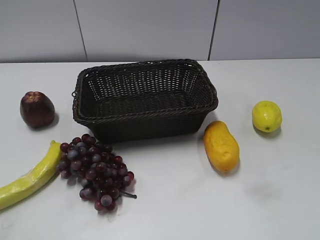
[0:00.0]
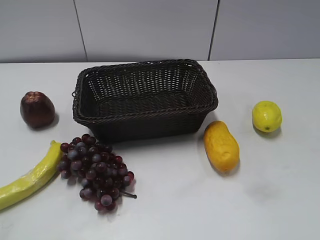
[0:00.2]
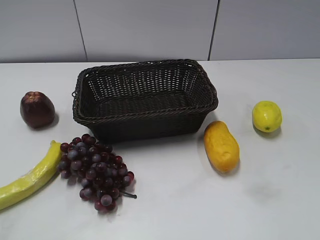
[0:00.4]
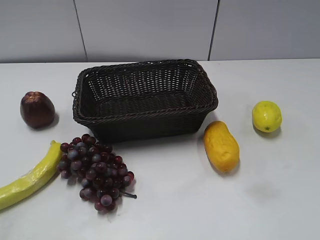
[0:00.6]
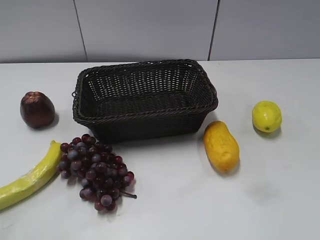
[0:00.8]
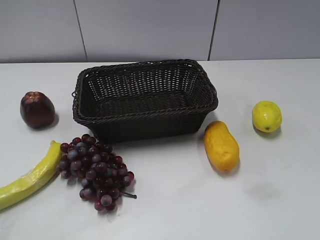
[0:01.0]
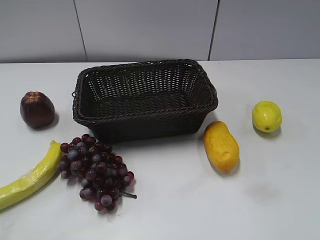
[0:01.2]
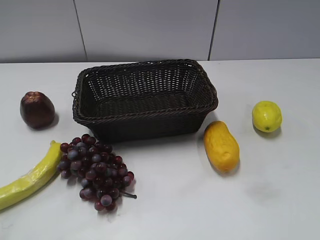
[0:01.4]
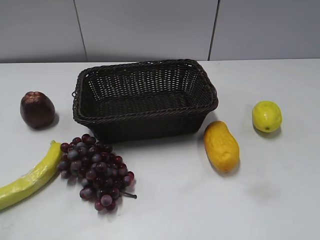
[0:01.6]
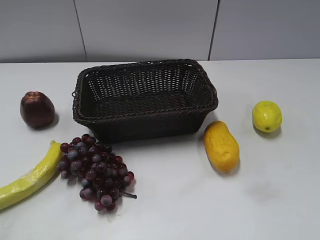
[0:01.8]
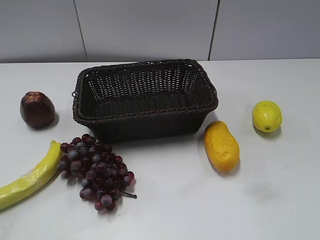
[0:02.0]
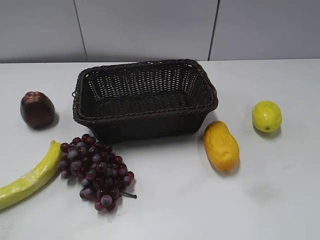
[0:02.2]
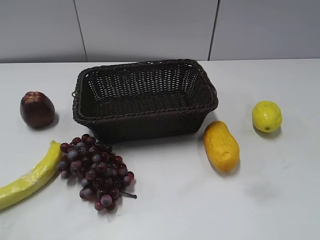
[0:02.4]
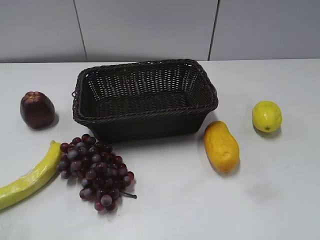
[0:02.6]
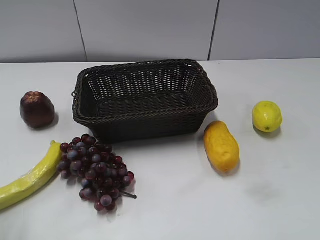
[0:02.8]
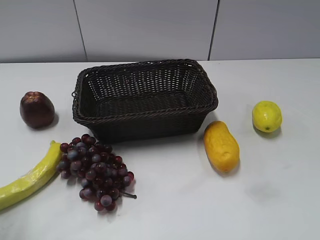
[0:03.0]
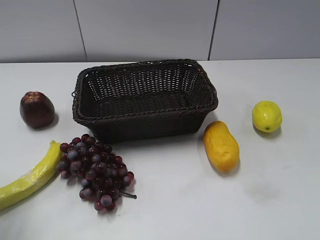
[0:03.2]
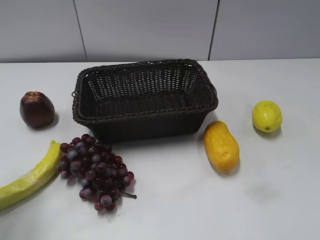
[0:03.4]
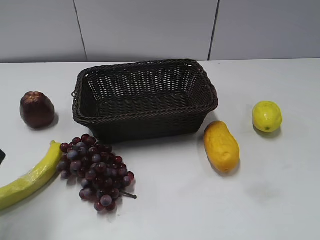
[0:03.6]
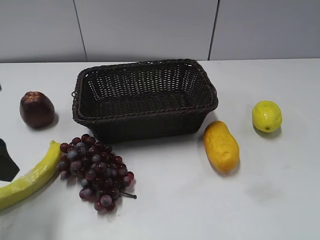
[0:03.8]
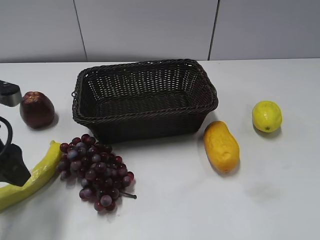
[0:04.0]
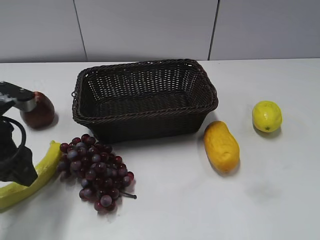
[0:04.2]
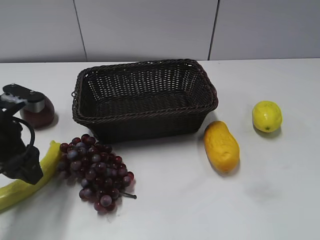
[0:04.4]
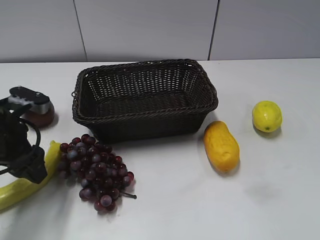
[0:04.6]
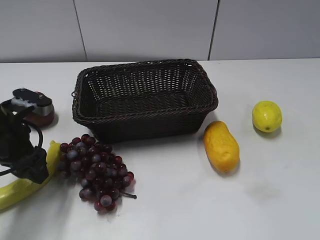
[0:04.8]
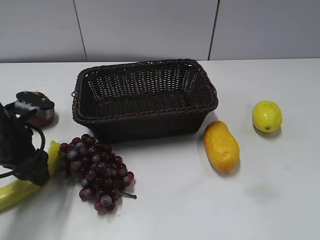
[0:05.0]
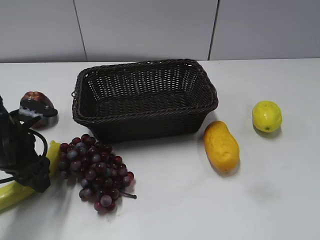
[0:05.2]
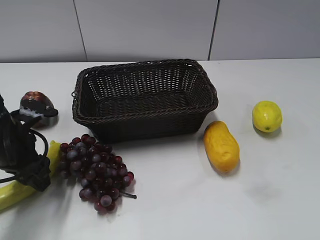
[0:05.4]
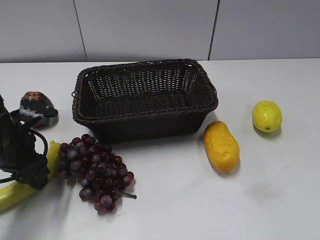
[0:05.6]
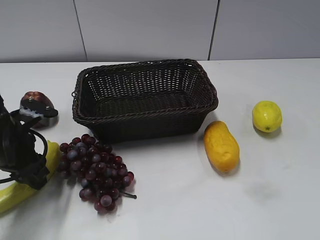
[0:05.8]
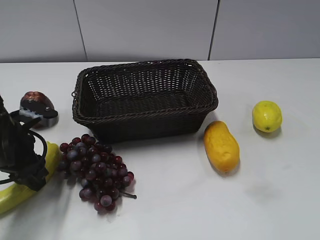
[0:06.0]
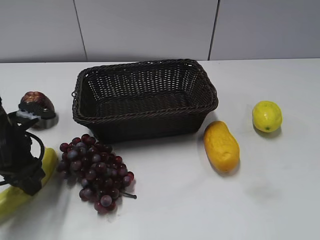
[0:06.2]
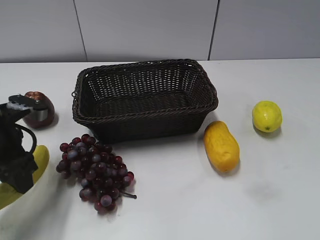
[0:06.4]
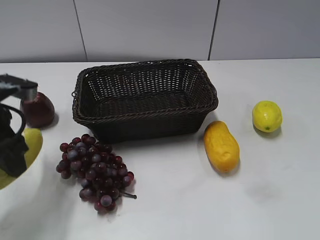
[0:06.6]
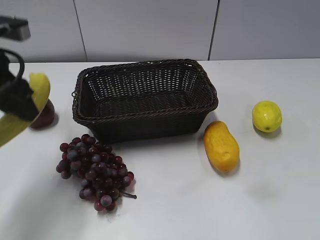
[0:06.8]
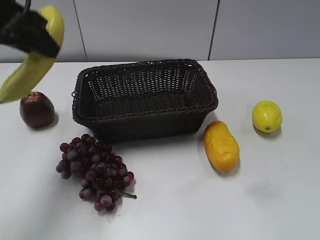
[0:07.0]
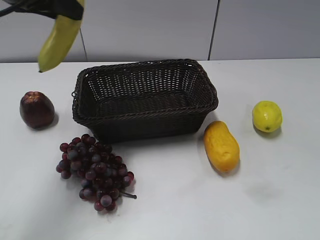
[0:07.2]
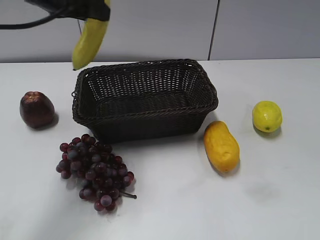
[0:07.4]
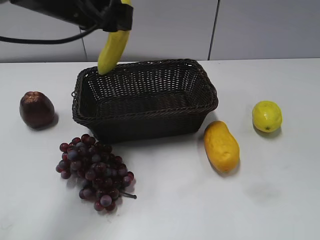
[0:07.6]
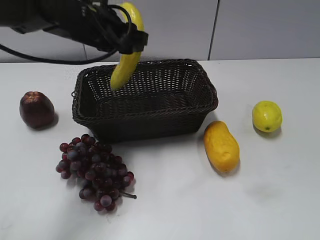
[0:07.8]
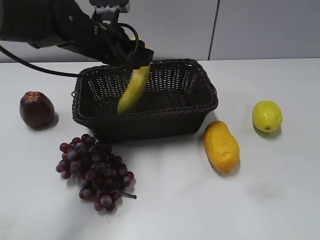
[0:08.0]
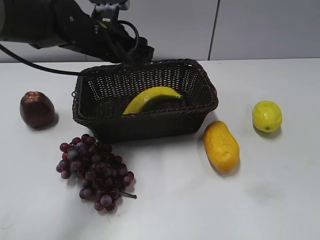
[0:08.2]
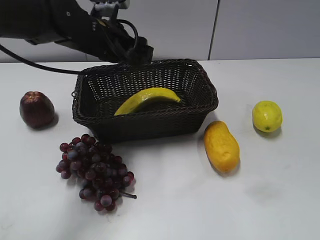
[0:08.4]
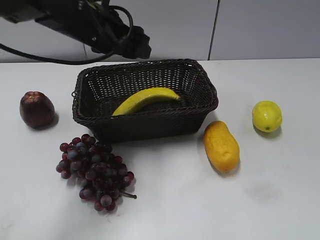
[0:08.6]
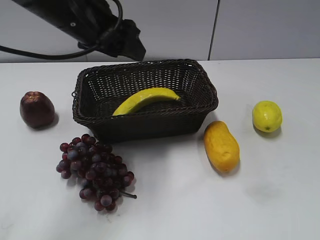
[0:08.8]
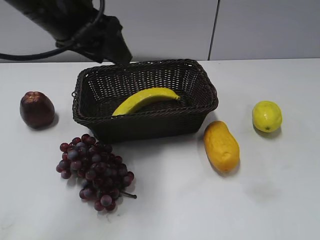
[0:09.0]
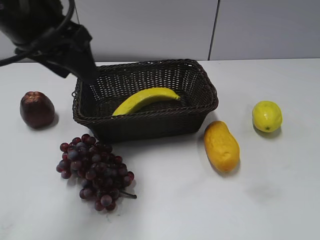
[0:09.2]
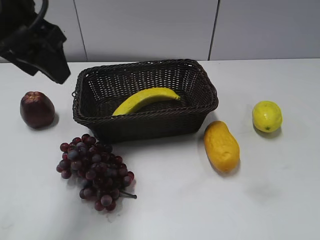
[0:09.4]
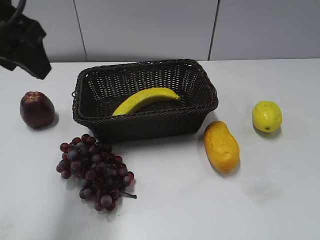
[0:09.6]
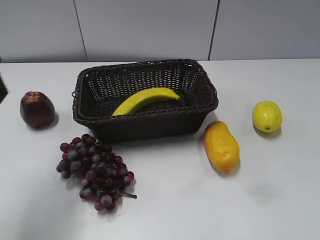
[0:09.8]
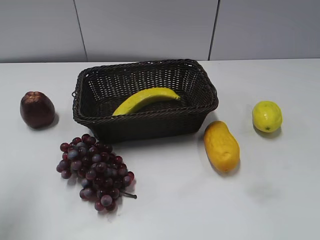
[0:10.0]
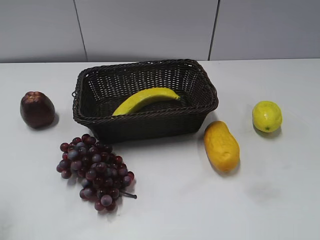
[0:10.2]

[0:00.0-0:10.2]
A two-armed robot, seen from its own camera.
Step, 0:03.6 to 0:05.6: Grasp the banana with left gripper.
Step, 0:05.8 to 0:08.2: Place the banana in the basket with left gripper.
0:03.0 to 0:04.4: The left gripper goes approximately 15 cm forward, downward and to the right.
0:04.4 to 0:05.8: The left gripper closes.
0:05.8 to 0:07.2: The left gripper heads upward, covering roughly 20 cm.
0:07.2 to 0:08.8: The left gripper moves to the right and downward, about 10 cm, and opens its fingers.
0:08.8 to 0:10.2: The left gripper is displaced to the left and backward by about 30 cm.

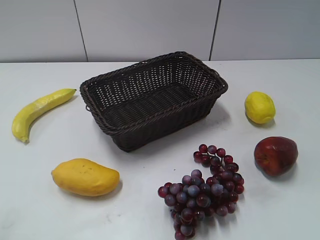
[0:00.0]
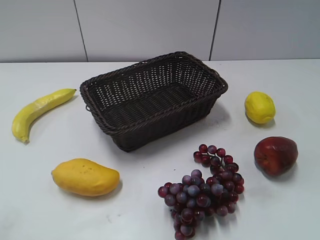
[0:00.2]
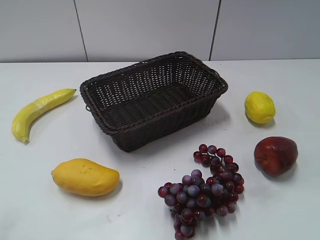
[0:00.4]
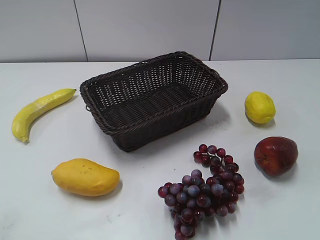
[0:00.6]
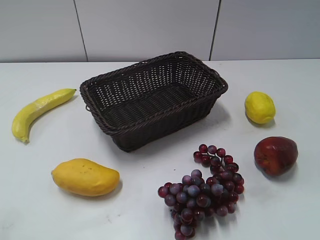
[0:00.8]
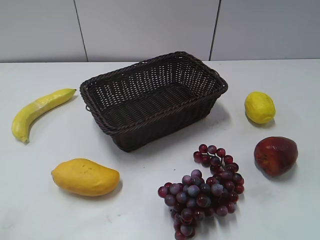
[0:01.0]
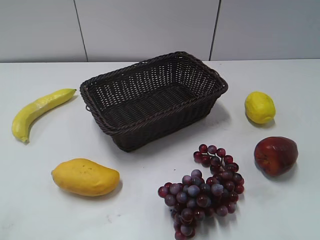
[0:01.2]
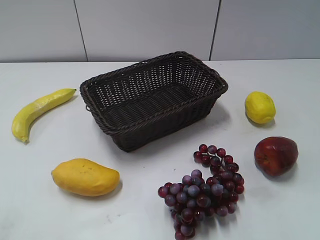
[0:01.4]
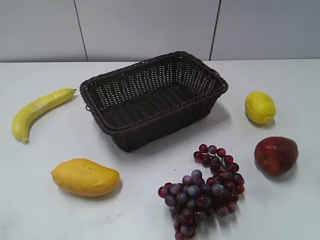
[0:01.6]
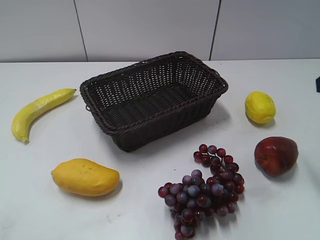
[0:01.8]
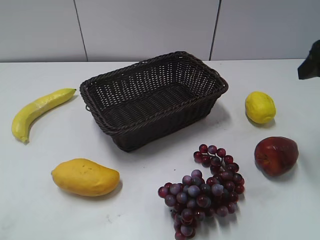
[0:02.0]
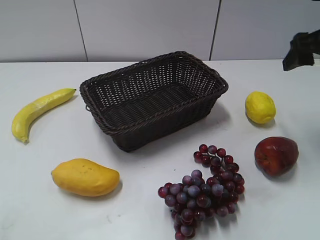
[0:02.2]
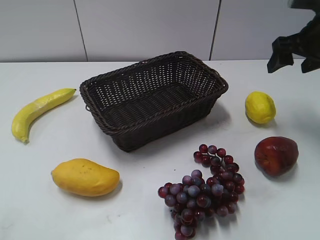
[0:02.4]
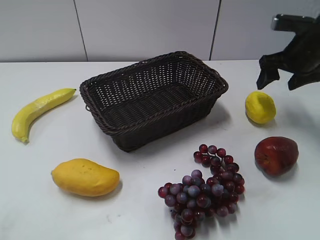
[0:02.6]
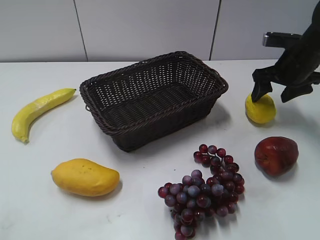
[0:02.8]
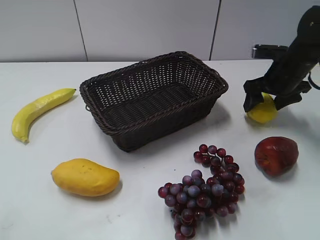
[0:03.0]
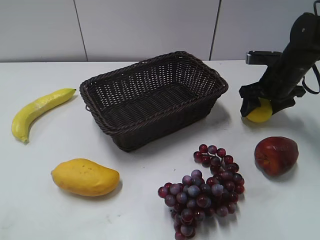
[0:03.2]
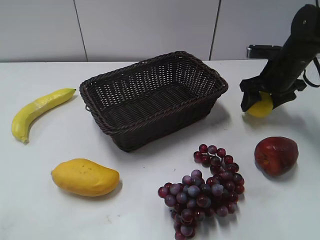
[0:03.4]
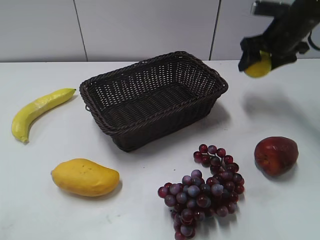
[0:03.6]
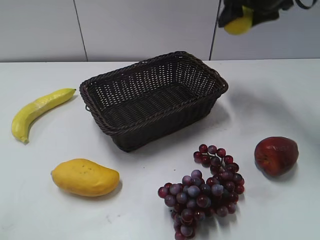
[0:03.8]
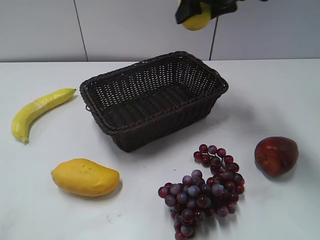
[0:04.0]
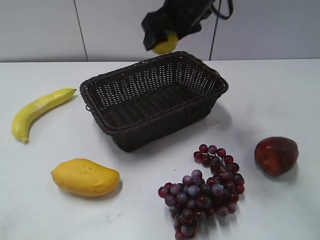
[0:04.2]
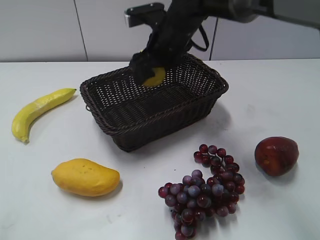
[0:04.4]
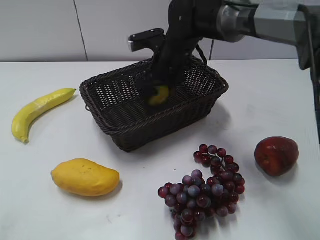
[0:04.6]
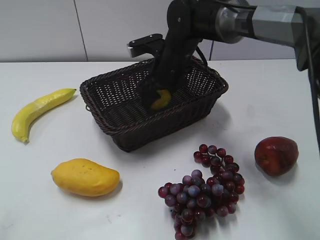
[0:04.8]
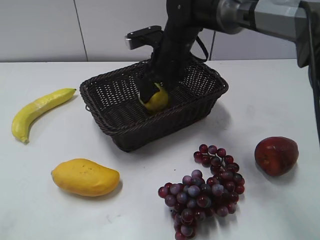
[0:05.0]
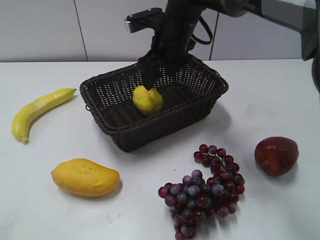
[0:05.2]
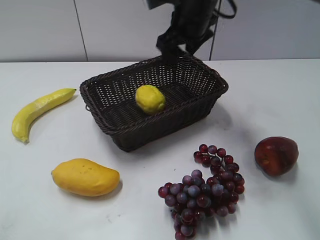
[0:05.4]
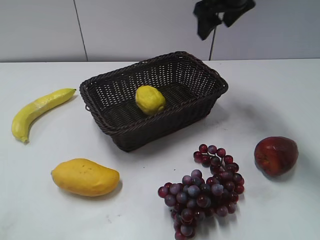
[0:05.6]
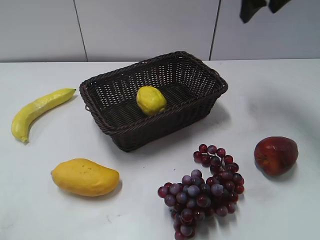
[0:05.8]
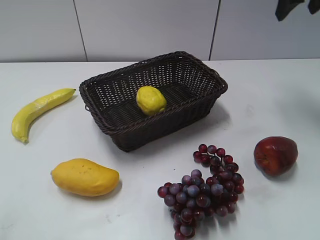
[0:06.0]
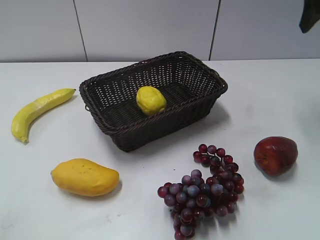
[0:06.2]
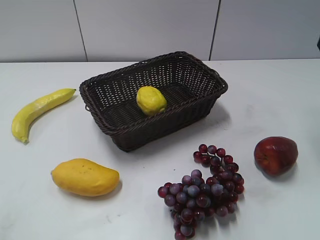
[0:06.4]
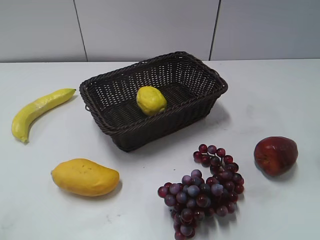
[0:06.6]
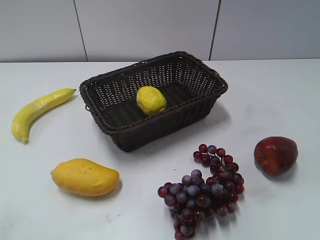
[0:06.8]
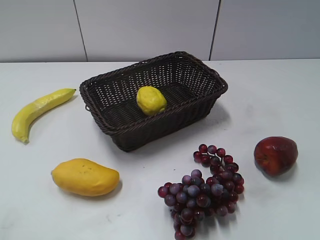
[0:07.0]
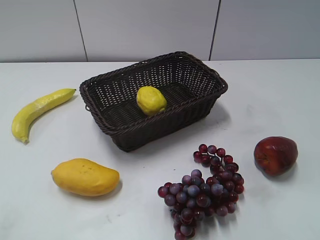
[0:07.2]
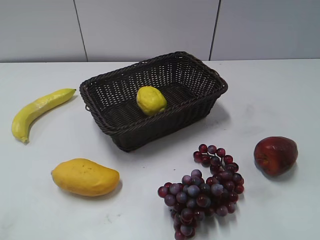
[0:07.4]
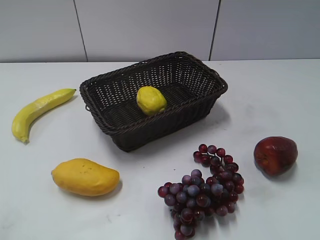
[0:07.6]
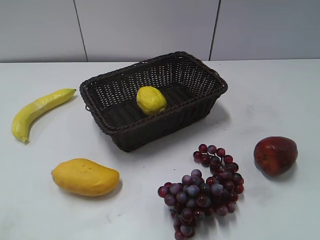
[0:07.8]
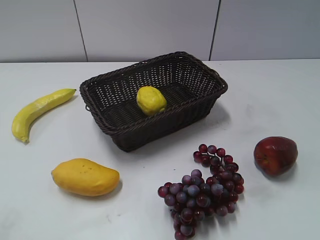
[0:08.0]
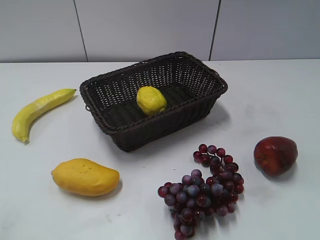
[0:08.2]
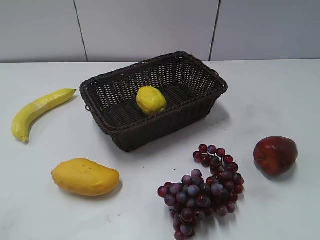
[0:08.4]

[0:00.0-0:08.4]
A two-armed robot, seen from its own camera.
Step, 0:01.8 to 0:03.0: Grasp the lemon with right gripper.
Step, 0:03.2 to 0:05.0: Place the lemon in the basket with right gripper.
0:01.4 to 0:02.8: The right gripper travels forward and downward by approximately 35 cm, and opens up.
0:02.8 to 0:04.2: The right gripper is displaced to the left and upward by about 25 cm, and closes up.
0:04.2 to 0:05.6: The right gripper moves to the right, approximately 10 cm, and moves some 10 cm downward and comes back.
0:05.6 to 0:07.0: The right gripper goes some 30 cm backward and to the right.
